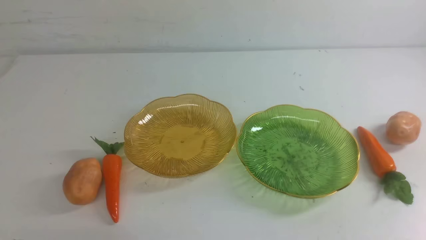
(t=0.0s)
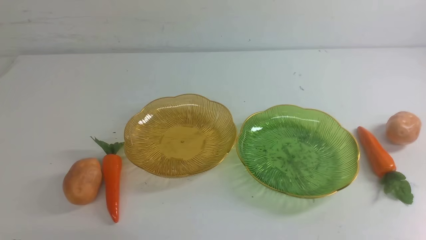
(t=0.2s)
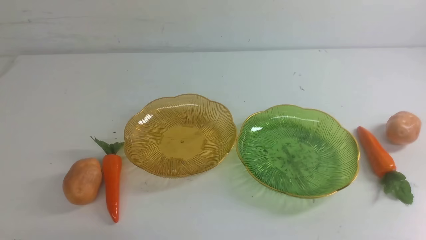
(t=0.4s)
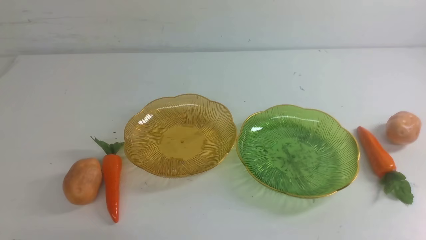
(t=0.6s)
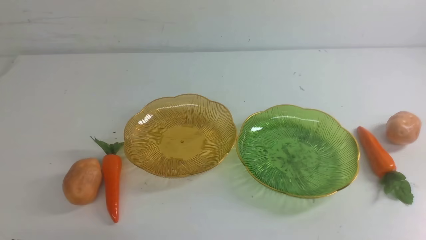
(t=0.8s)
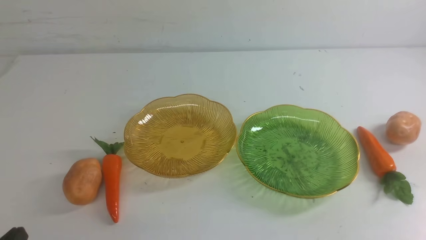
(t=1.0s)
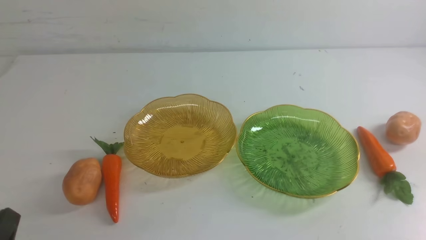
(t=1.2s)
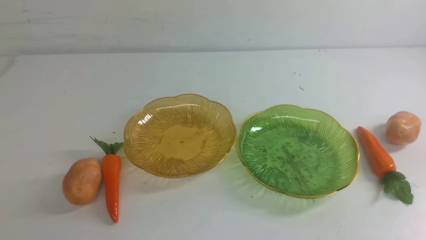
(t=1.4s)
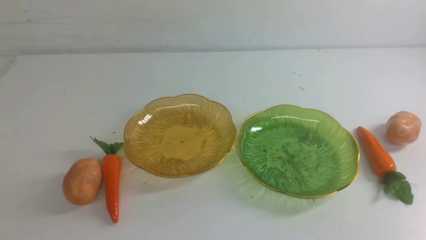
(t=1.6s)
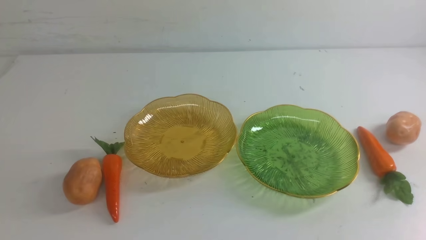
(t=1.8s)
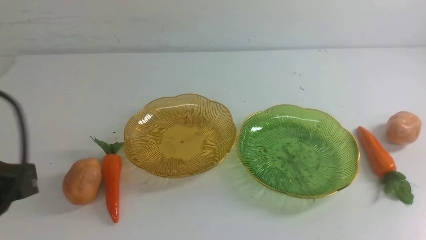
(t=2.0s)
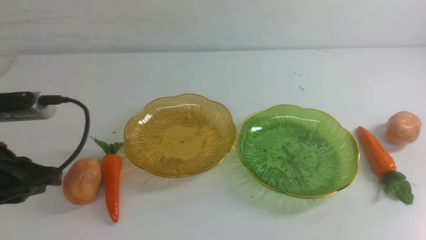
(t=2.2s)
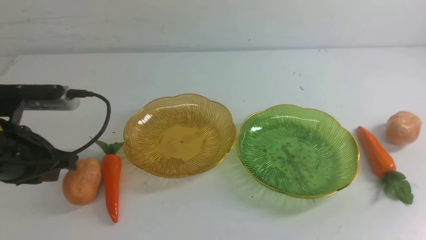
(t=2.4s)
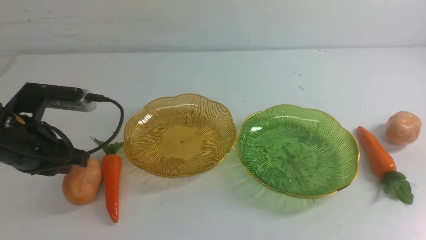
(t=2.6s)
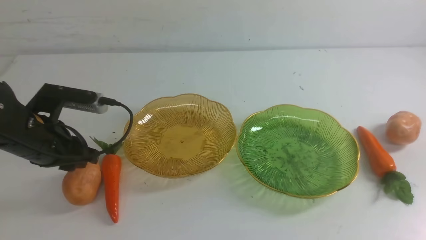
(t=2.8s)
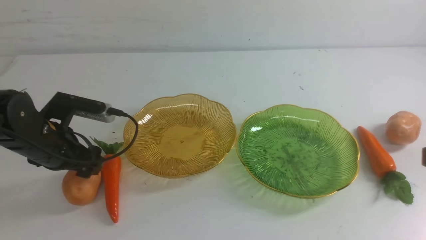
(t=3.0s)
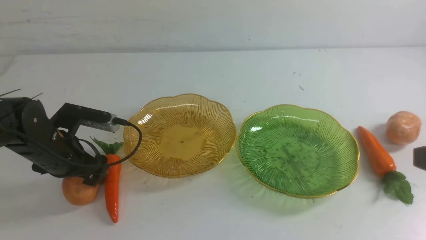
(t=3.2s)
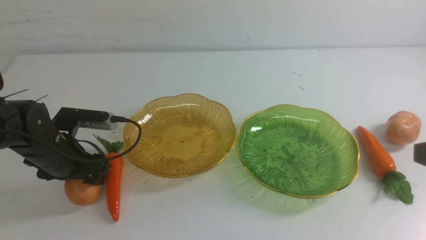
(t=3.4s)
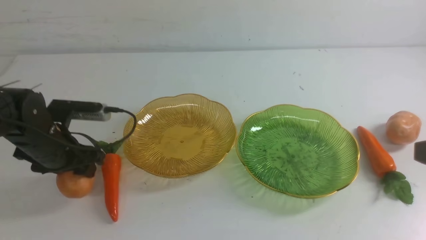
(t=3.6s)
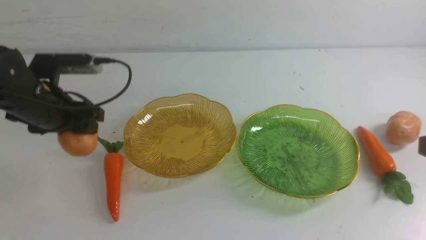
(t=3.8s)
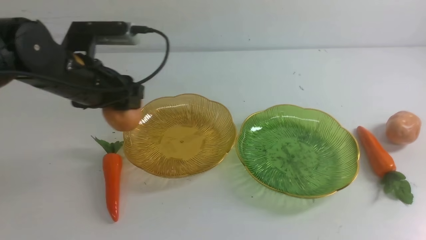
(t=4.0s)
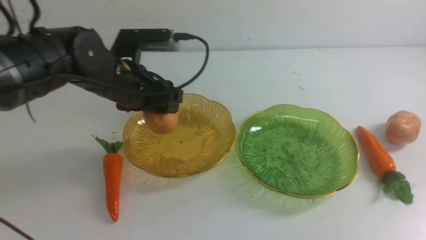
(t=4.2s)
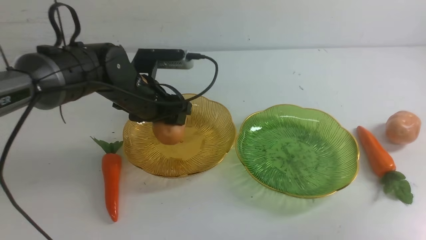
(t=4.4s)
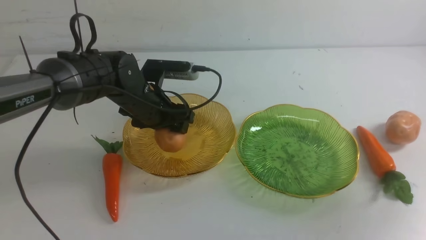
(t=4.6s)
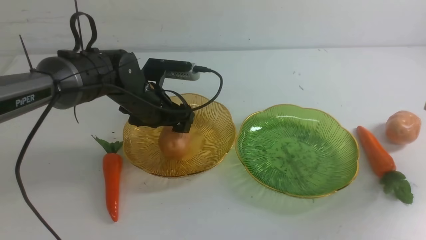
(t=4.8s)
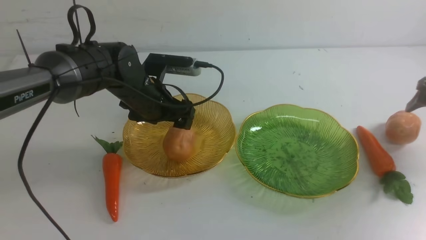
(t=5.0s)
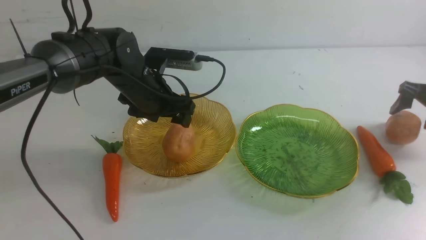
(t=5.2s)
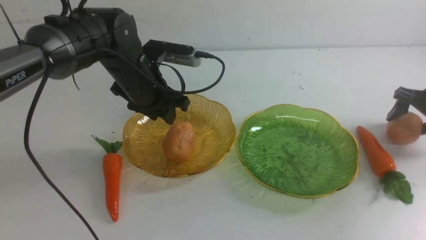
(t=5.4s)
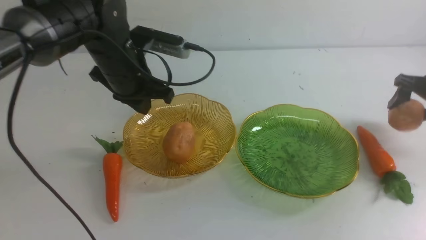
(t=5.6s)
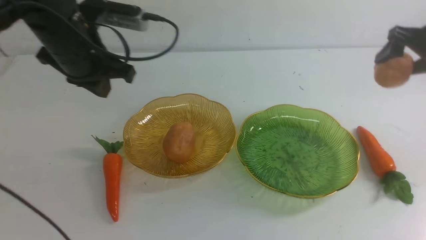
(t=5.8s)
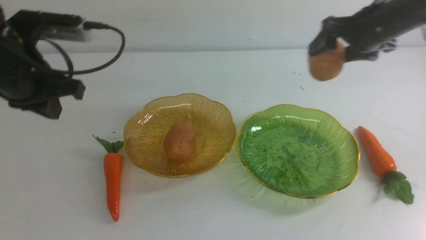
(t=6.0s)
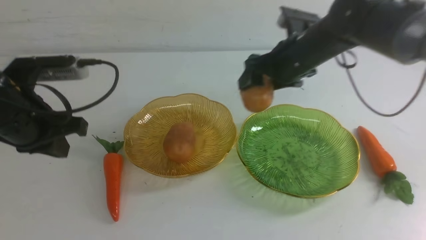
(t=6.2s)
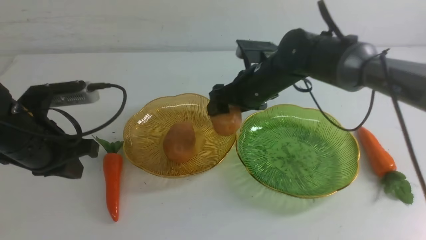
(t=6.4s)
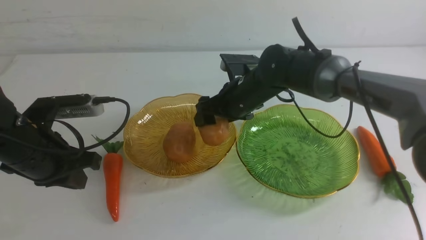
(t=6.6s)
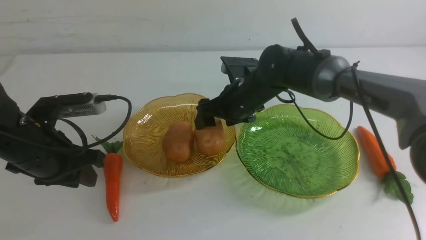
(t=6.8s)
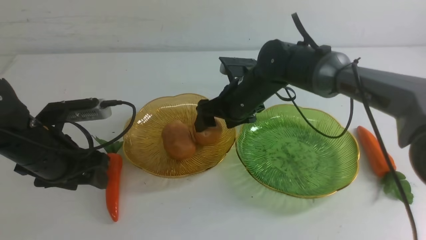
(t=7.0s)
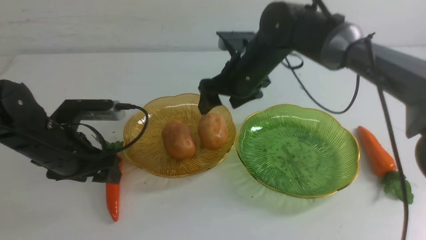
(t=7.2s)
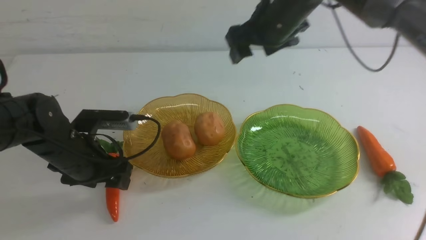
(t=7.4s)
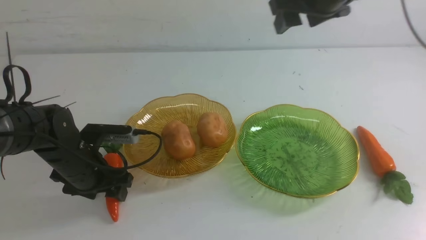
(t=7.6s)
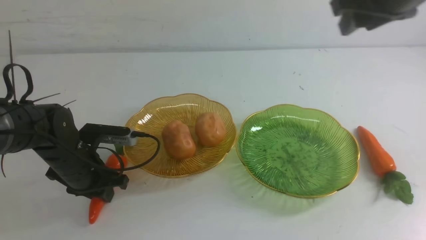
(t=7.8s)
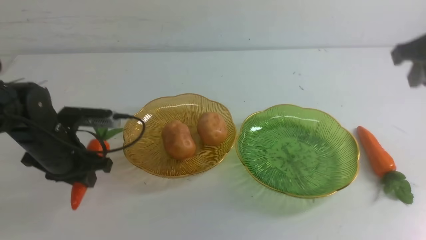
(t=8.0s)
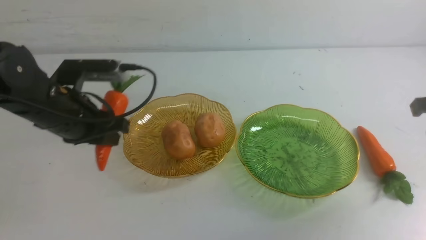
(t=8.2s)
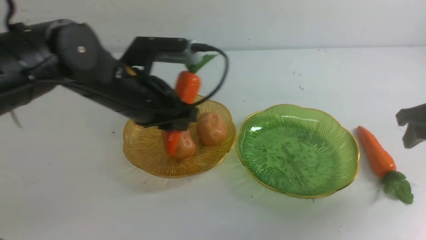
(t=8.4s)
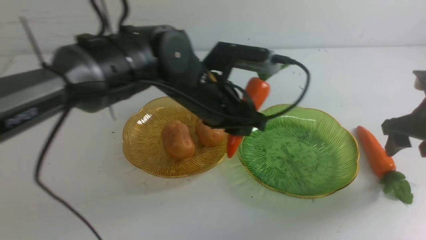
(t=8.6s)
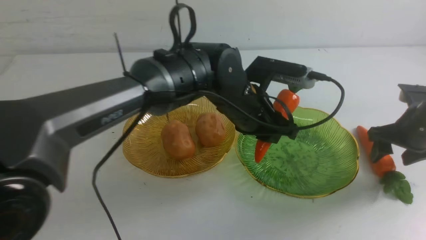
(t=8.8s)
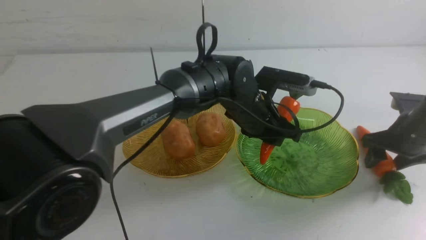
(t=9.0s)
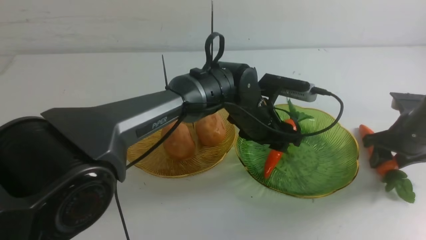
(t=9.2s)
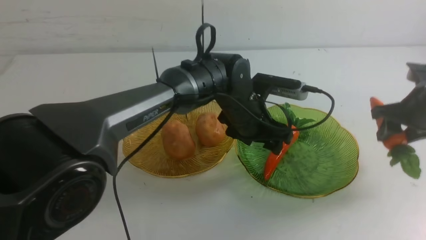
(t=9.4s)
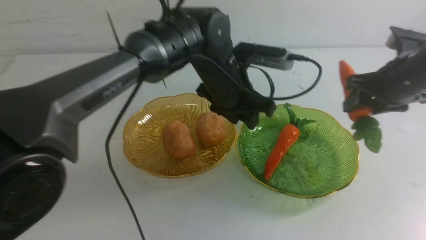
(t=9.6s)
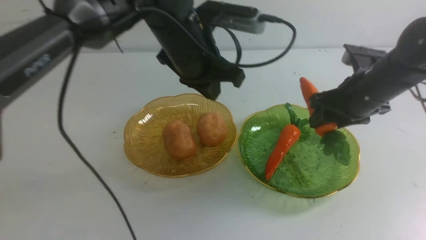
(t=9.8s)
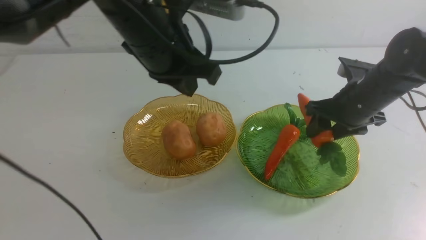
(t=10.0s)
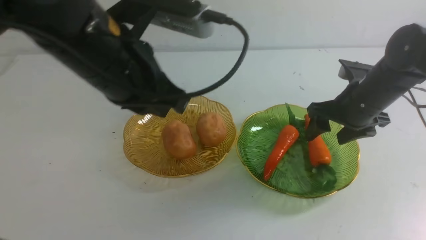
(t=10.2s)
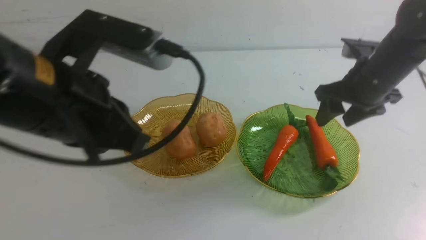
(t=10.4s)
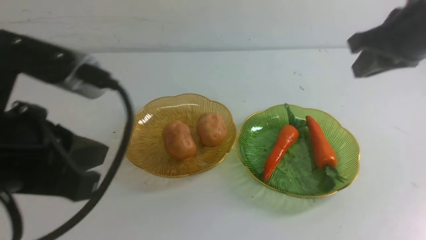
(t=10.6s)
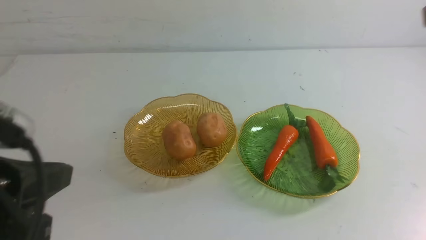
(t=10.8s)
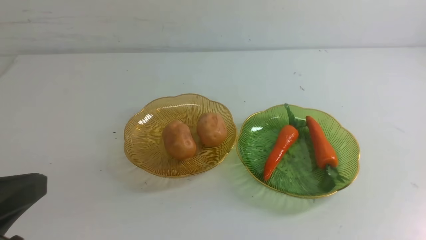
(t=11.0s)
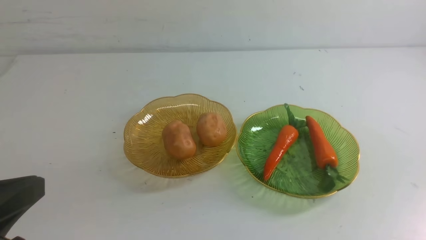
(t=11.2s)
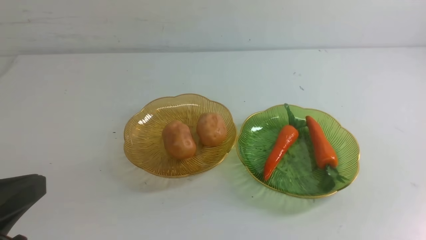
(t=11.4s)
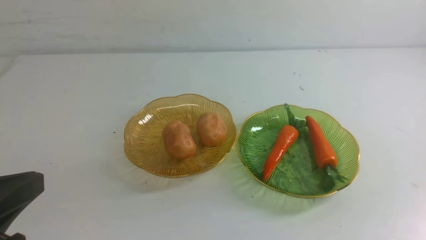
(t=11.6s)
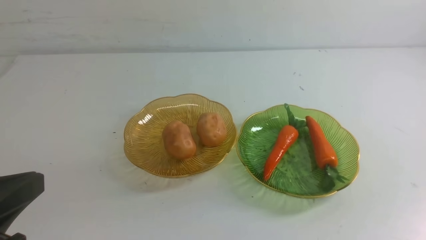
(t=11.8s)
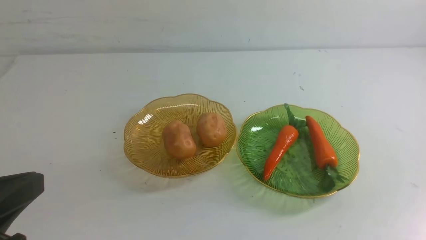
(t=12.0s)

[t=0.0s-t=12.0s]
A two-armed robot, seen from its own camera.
Step, t=0.0s to t=4.8s: Grab a potato with your left arm and put it on the left plate.
Step, t=5.0s to t=6.8s: Grab a potato with your right arm and put it on the left plate.
Step, t=7.0s to t=9.0s: use the left arm to grab a carrot and put it into the right plate.
Step, t=9.4s to t=10.2s: use the right arm to grab a carrot and put it into the right plate.
t=1.6s to t=3.0s: The left gripper goes about 25 cm forward, and opens its fingers.
t=3.0s to t=4.4s: The left gripper shifts some 15 cm to the right and forward, while the right gripper goes roughly 20 cm forward and to the right.
t=4.4s to t=6.0s: The left gripper shifts roughly 15 cm upward, to the left and backward, and closes. Meanwhile the right gripper is displaced to the left and forward by approximately 20 cm, and opens its fingers.
t=6.0s to t=7.6s: The left gripper goes approximately 15 cm downward, and opens; the right gripper travels upward, to the left and backward by about 15 cm.
t=7.6s to t=9.0s: The right gripper shifts approximately 30 cm downward and to the right, and closes, then opens again. The left gripper shifts approximately 25 cm to the right.
t=9.0s to t=10.4s: The right gripper heads upward and to the left, covering some 20 cm, and closes up. Meanwhile the left gripper is displaced to the left, backward and upward by roughly 35 cm, and closes up.
t=10.4s to t=12.0s: The left gripper travels backward, to the left and downward by approximately 10 cm; the right gripper travels backward by about 30 cm.

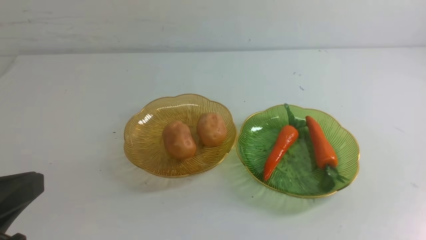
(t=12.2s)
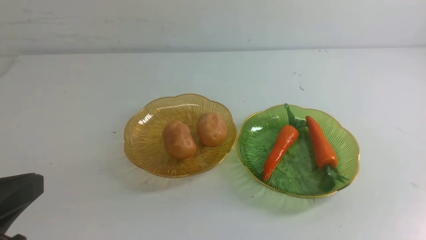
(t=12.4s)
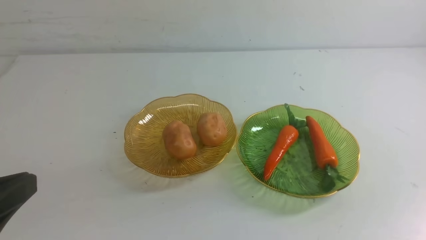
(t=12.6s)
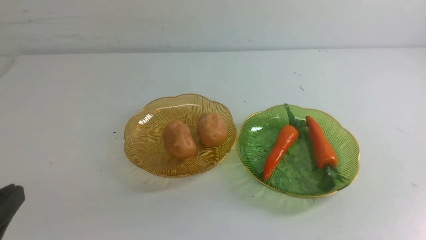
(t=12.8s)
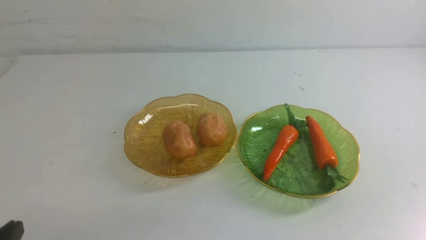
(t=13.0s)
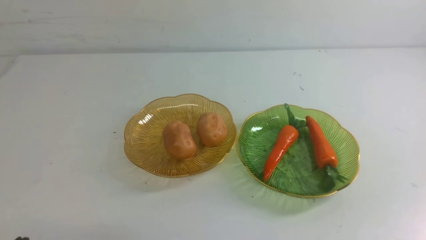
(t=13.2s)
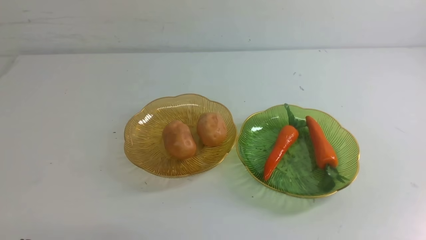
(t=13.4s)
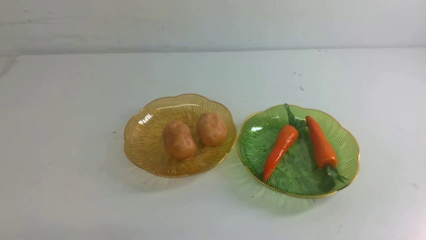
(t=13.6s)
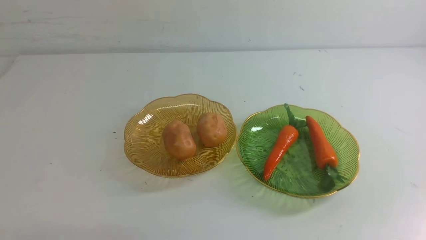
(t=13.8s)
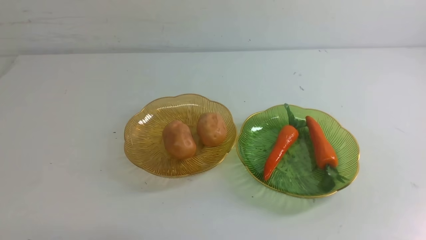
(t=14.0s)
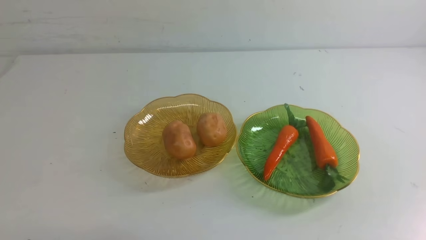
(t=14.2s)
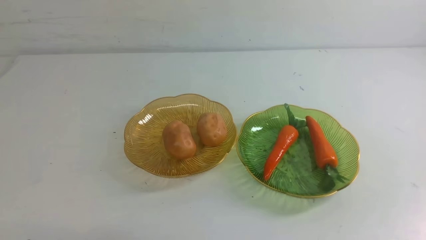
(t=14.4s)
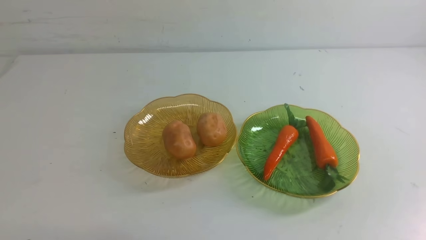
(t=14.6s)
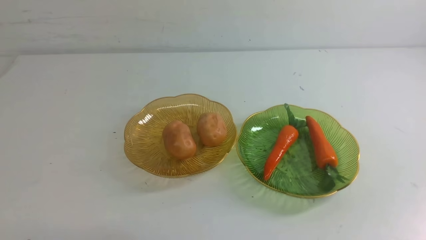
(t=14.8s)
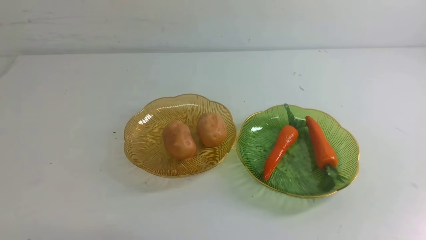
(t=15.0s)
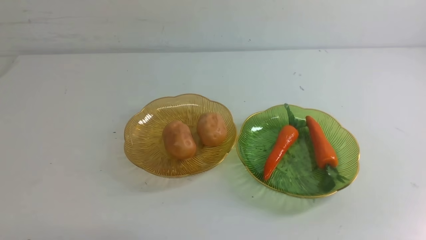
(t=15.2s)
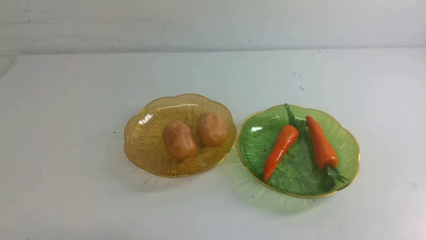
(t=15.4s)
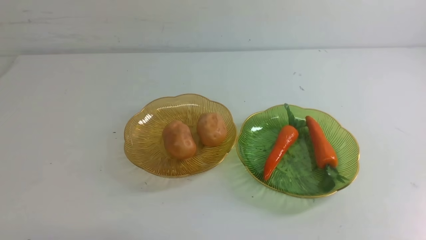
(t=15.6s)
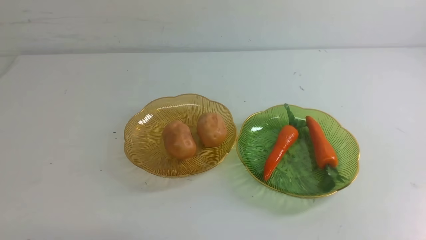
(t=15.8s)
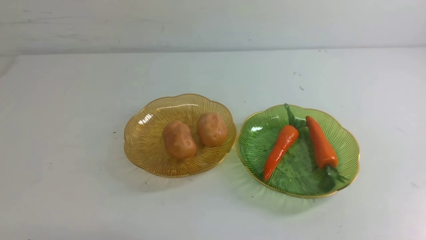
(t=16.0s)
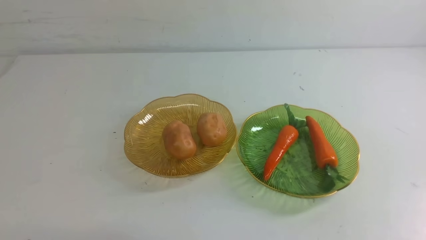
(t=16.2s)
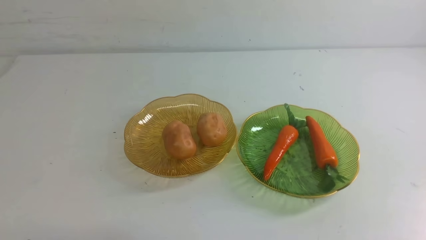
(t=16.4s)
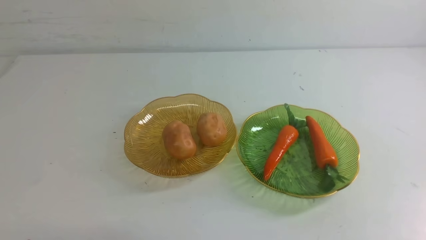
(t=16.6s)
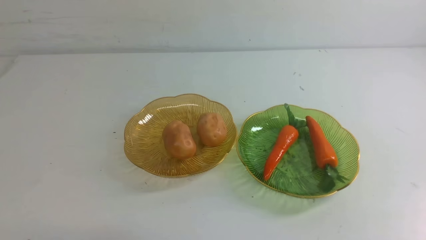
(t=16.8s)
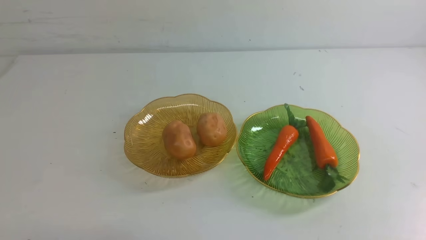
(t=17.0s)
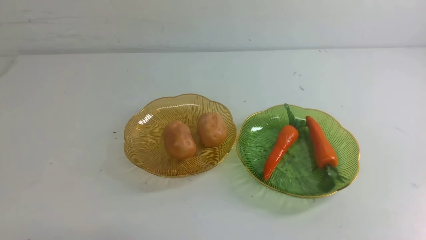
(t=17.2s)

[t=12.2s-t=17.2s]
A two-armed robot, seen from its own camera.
t=12.2s to t=13.8s: The left gripper travels downward by about 10 cm.
t=15.6s to t=17.2s: Both grippers stay put.
